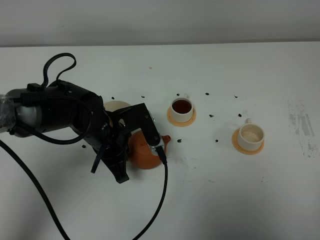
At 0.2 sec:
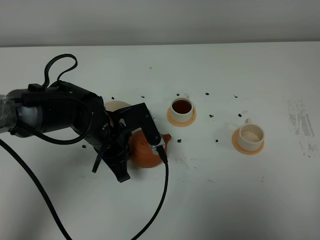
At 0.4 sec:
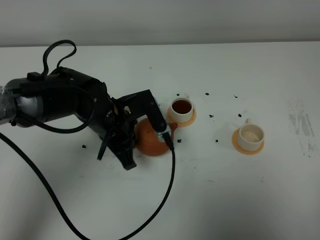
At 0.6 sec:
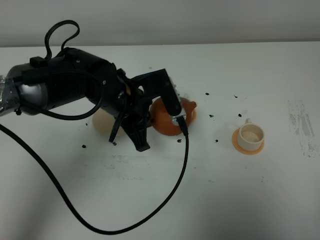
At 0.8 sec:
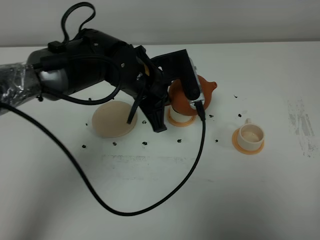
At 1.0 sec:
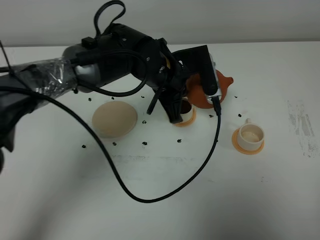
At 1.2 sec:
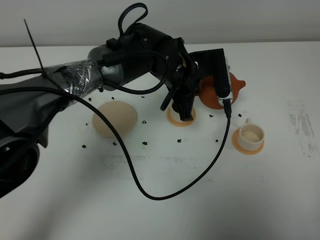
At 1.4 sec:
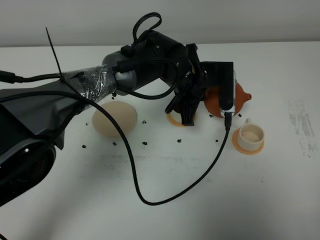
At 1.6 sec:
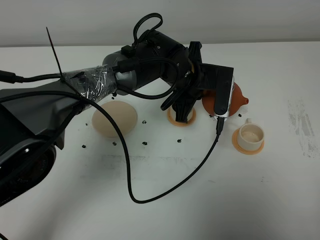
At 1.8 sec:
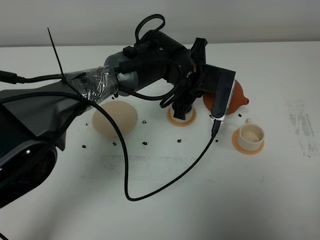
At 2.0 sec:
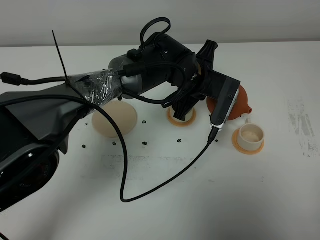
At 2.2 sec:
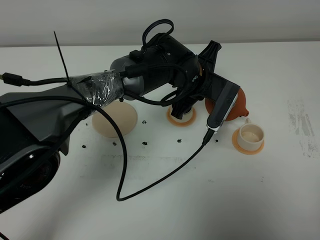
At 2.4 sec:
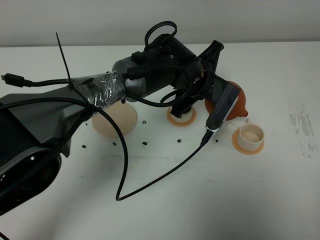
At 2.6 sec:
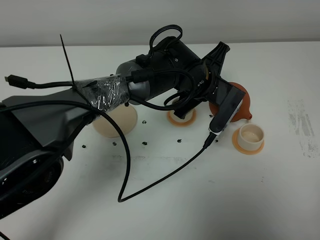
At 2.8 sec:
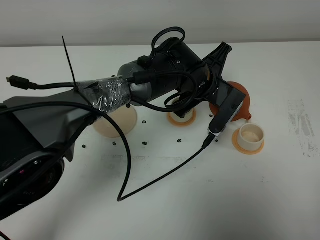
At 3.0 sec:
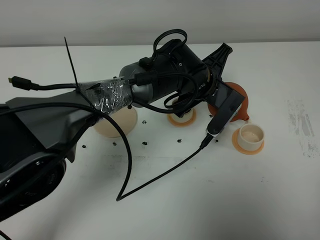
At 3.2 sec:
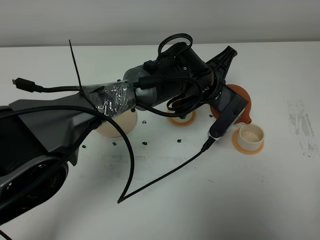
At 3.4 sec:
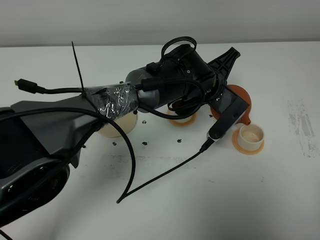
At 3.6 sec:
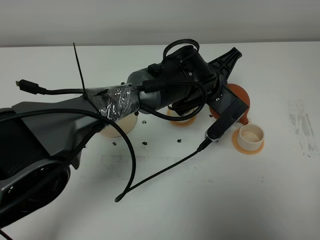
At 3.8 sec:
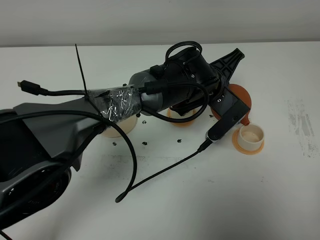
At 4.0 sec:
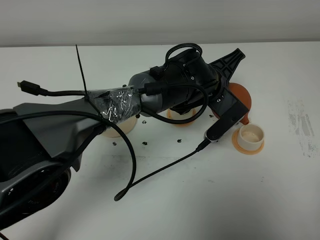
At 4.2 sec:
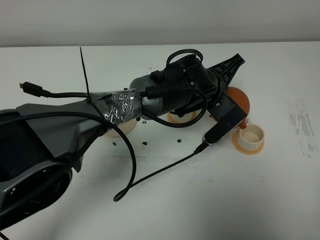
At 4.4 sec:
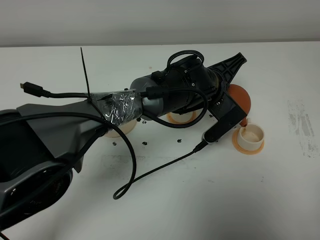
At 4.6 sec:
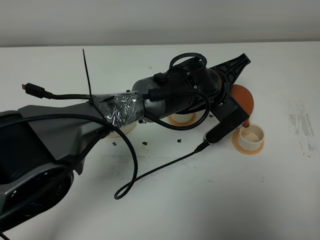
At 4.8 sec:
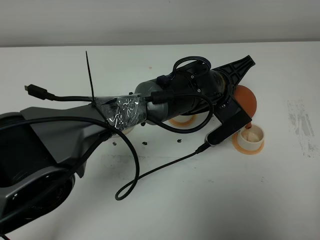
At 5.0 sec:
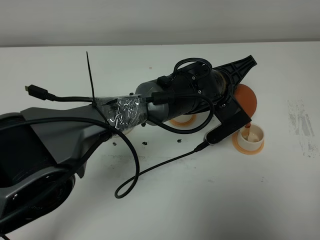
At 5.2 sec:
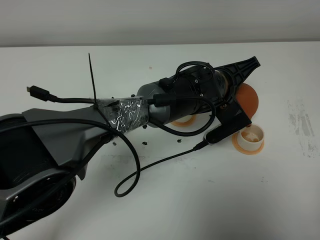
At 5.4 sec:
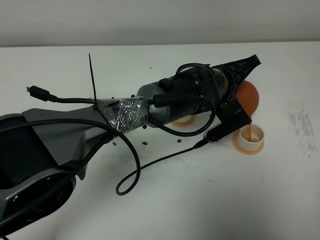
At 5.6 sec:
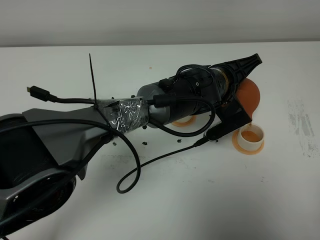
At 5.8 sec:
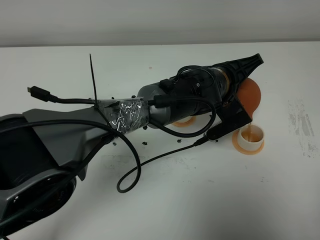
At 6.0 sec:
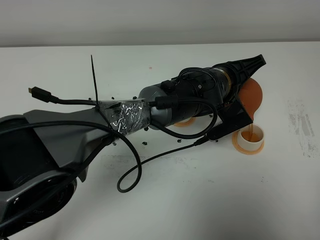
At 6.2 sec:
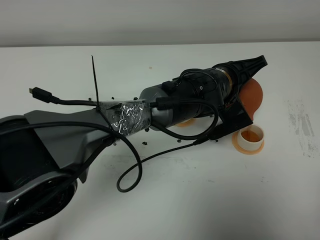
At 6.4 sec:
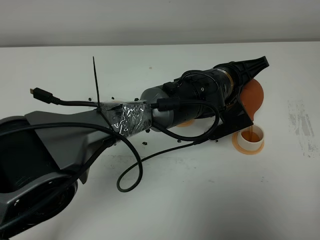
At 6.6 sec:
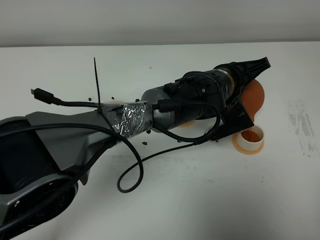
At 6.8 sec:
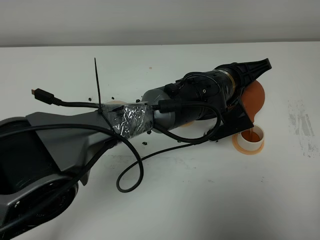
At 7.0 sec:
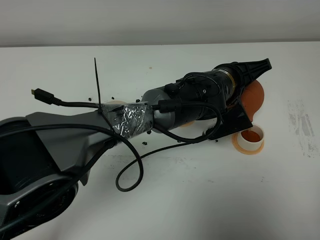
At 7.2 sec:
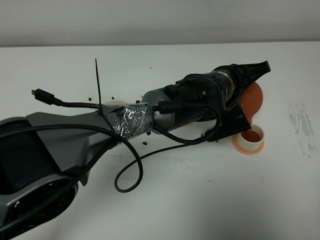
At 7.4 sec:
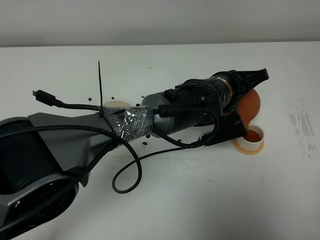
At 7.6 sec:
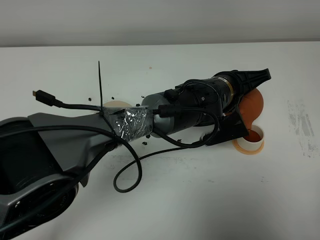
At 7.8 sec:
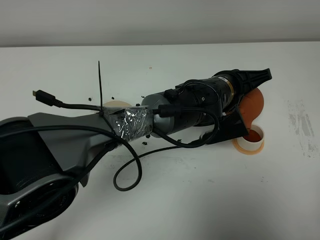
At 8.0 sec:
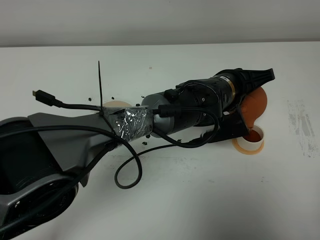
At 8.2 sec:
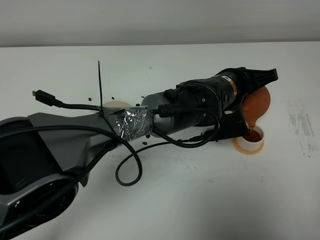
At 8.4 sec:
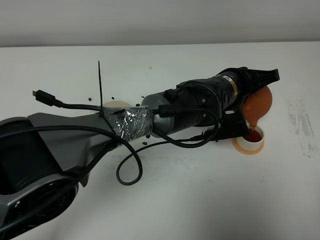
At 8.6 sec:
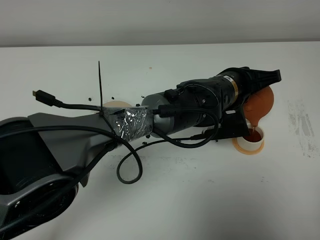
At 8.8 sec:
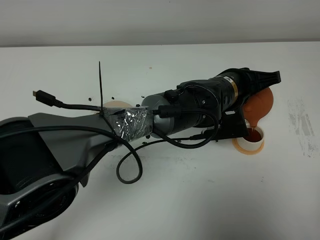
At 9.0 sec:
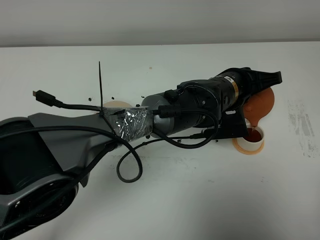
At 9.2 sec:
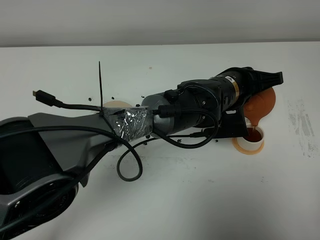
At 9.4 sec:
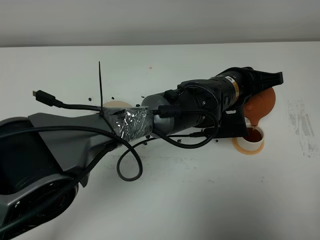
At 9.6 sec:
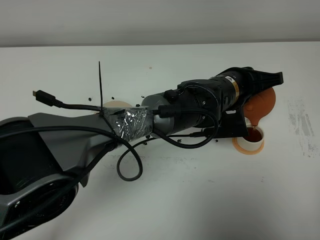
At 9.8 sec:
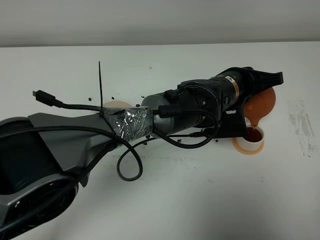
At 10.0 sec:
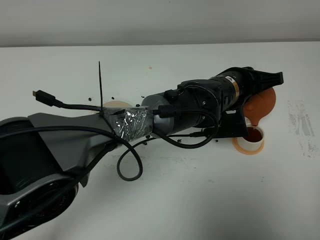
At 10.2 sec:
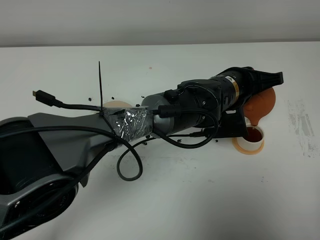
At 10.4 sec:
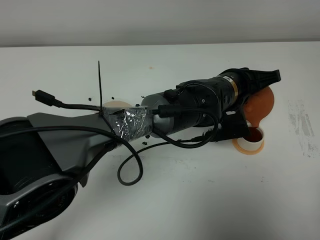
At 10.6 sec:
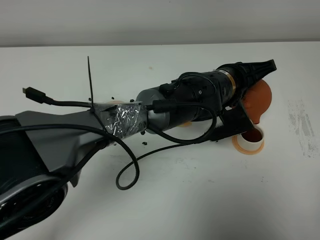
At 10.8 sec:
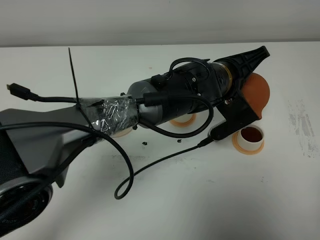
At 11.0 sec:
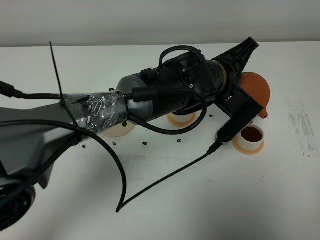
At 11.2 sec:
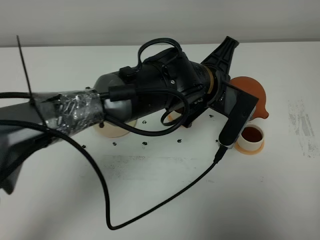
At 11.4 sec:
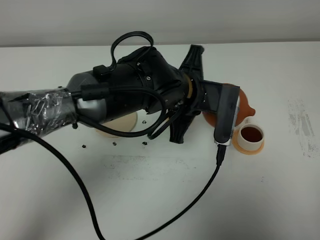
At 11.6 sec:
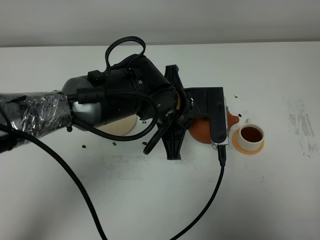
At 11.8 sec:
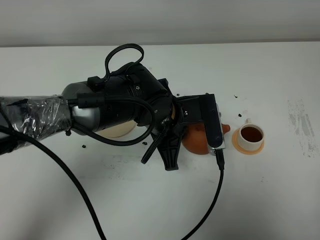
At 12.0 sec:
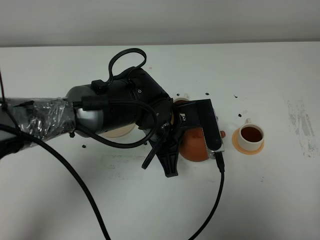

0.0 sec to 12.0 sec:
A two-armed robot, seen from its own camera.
Task of the whole recording: grasp the brown teapot and pour the tea into the two white teacups one by one, put the brown teapot back in its original place.
Step, 0.0 sec to 10.6 sec: Pour tea into the teacup with the left gripper.
0.0 sec to 1.6 sec: The left gripper heads to the right and forward, covering about 15 cm.
3.0 sec to 4.4 sec: There are only small adjustments of the grippers.
4.4 sec to 6.0 sec: The grippers make only small movements.
6.0 sec to 9.0 sec: The grippers move only a little.
9.0 sec to 10.4 sec: There are only small adjustments of the grippers.
10.4 sec to 12.0 sec: The left gripper moves to the left and backward, some 10 cm.

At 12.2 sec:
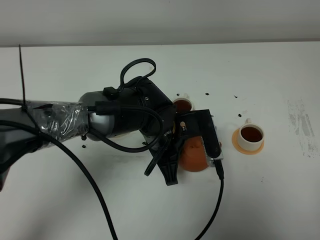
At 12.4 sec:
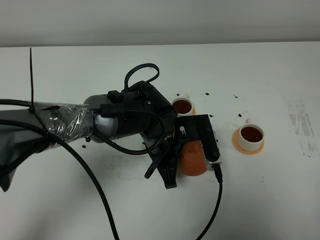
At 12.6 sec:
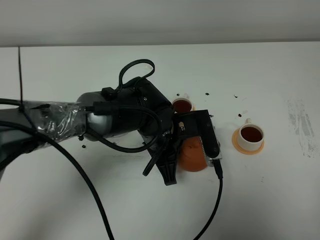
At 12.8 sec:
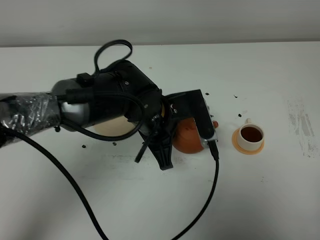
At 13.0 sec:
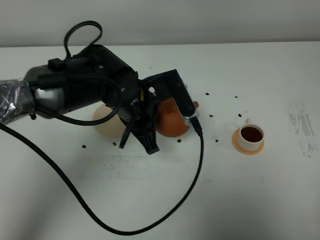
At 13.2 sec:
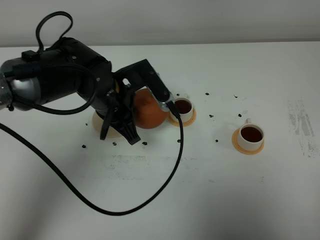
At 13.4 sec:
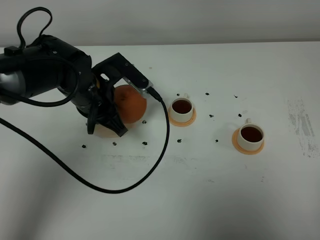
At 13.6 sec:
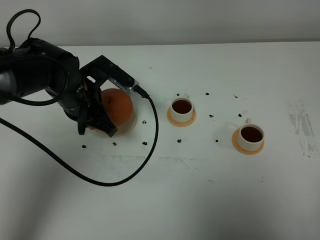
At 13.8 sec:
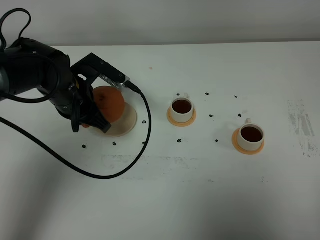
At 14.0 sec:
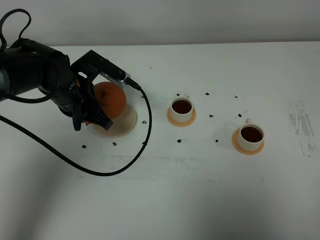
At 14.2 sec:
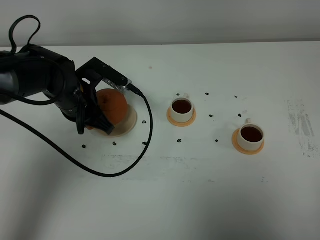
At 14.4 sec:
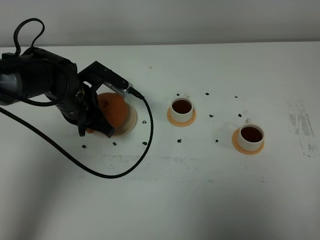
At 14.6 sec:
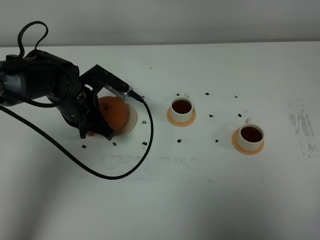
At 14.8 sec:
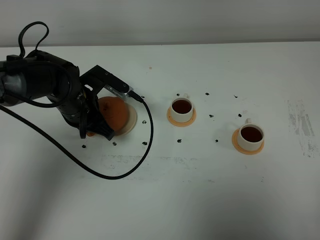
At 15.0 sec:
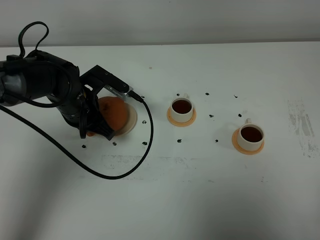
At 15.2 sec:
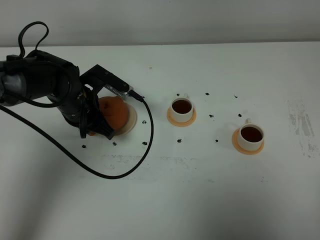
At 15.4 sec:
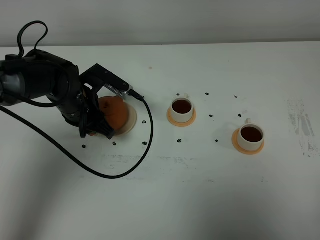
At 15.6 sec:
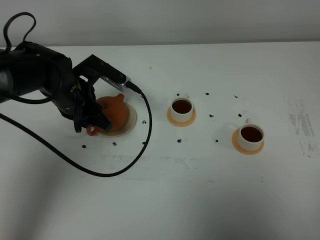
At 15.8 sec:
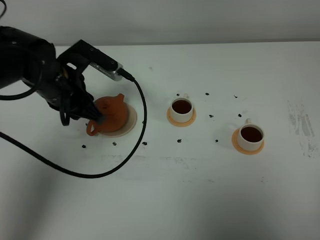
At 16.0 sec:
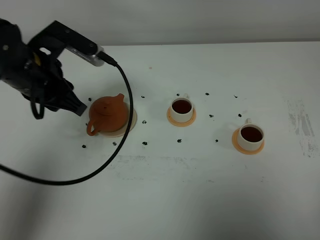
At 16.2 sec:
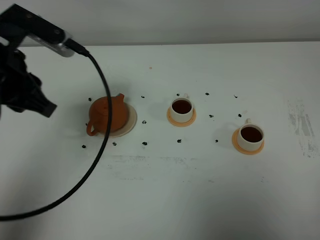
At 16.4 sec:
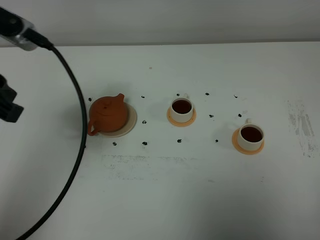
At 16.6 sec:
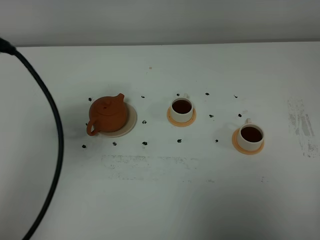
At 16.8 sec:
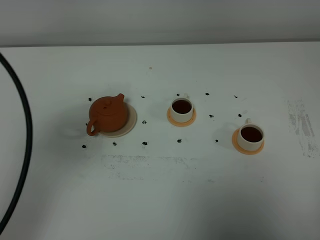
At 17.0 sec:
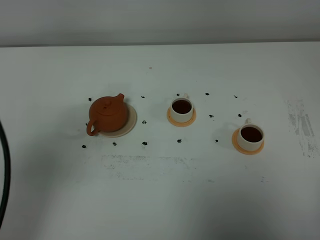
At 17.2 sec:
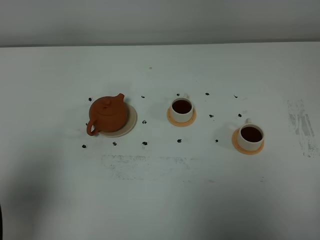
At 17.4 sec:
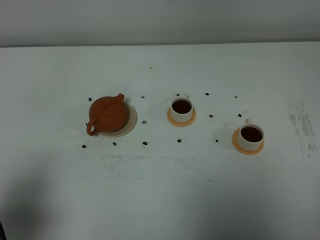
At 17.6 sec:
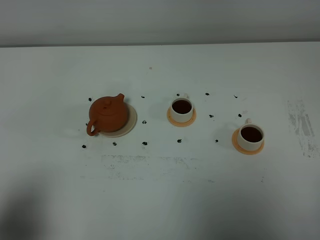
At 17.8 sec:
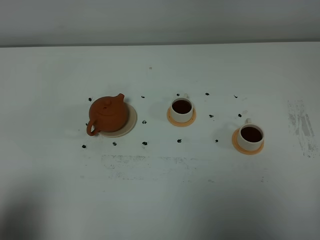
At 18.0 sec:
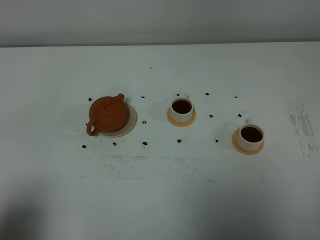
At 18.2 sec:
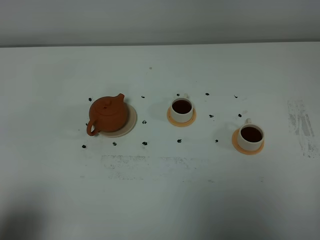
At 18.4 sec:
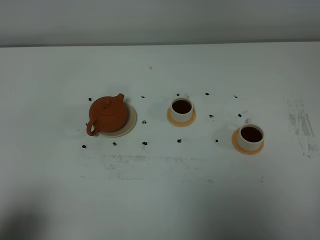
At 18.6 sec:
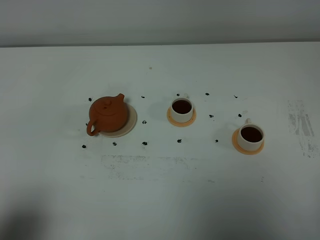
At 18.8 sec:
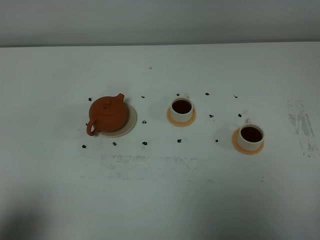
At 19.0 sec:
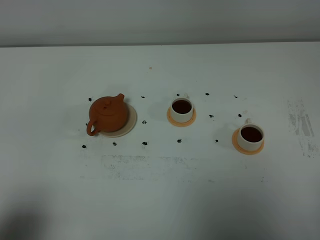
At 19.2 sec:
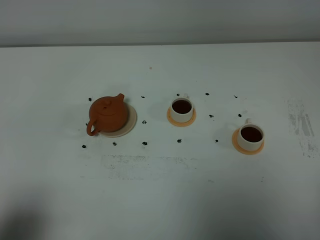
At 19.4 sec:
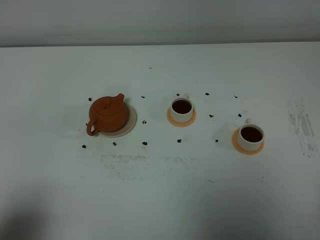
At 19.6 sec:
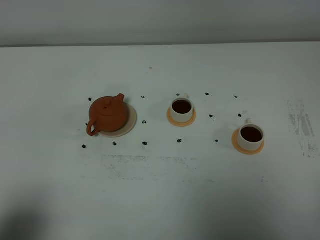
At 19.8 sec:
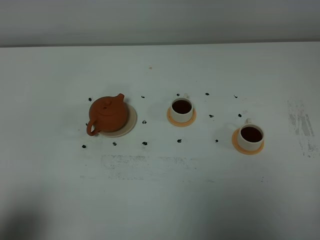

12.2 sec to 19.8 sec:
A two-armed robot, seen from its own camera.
Task of the whole recording: grasp the brown teapot and pour the tea into the two white teacups one by one, put the brown teapot back in its original place.
12.2 sec to 13.8 sec: The left gripper is displaced to the left and forward by approximately 20 cm.
13.8 sec to 15.2 sec: There are only small adjustments of the grippers.
15.2 sec to 16.8 sec: The left gripper shifts some 35 cm upward and backward.
16.8 sec to 18.2 sec: The left gripper goes approximately 20 cm backward and downward.
18.2 sec to 19.8 sec: Neither gripper changes place.
